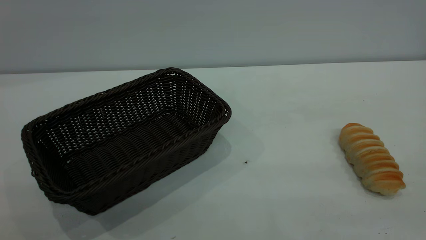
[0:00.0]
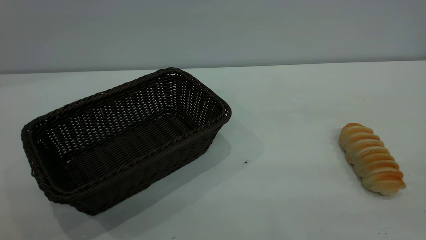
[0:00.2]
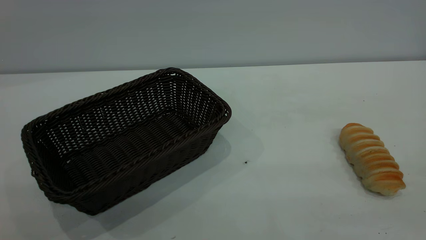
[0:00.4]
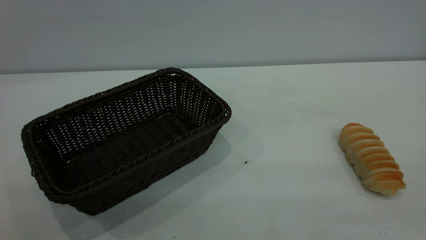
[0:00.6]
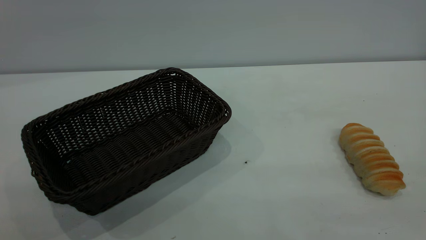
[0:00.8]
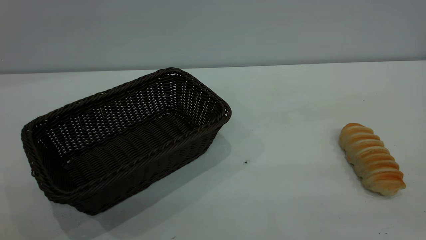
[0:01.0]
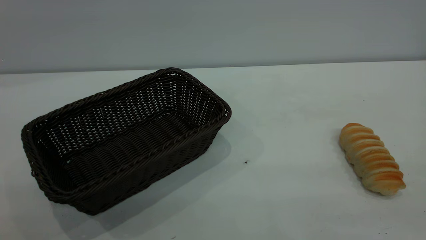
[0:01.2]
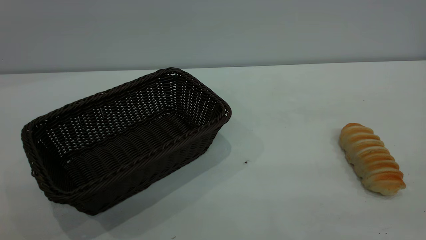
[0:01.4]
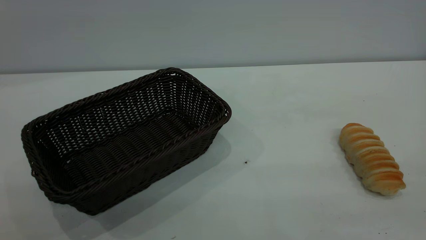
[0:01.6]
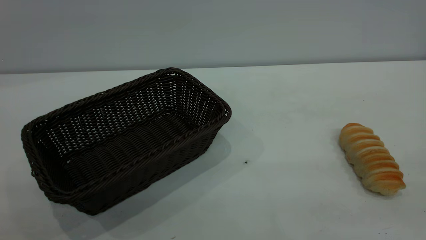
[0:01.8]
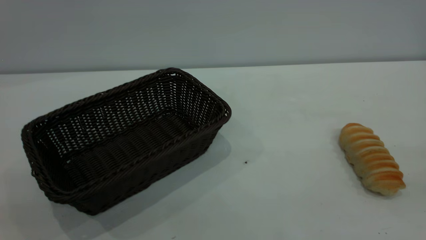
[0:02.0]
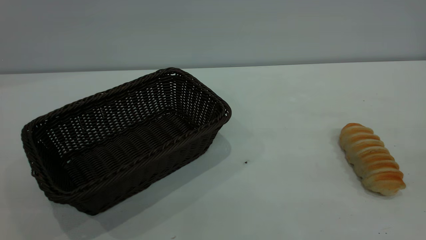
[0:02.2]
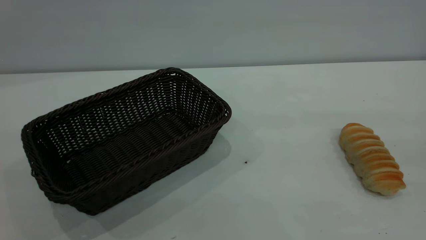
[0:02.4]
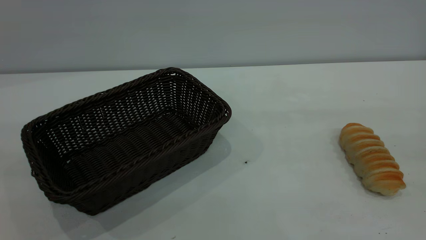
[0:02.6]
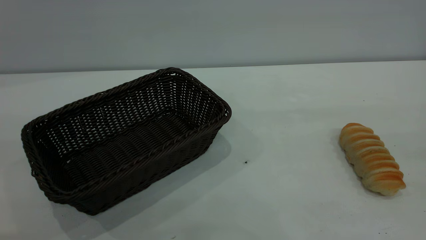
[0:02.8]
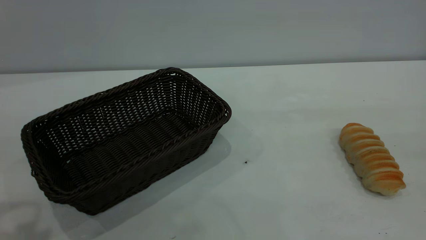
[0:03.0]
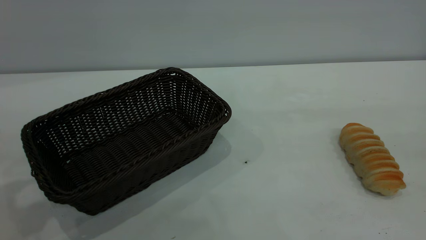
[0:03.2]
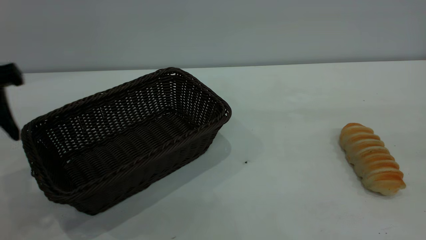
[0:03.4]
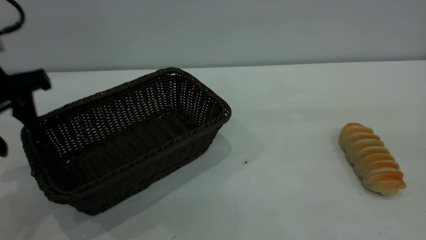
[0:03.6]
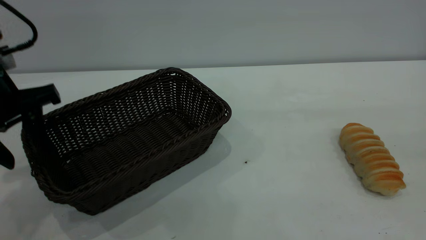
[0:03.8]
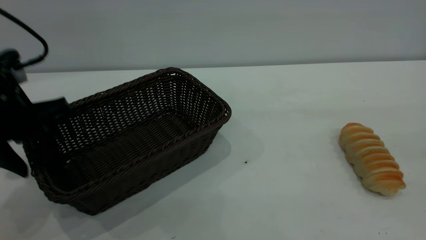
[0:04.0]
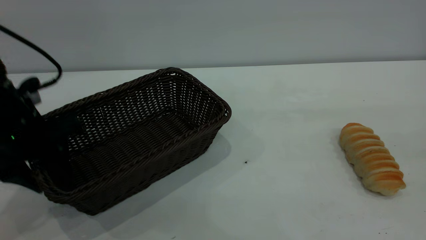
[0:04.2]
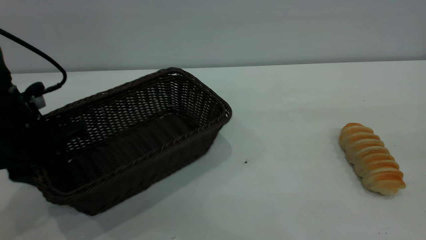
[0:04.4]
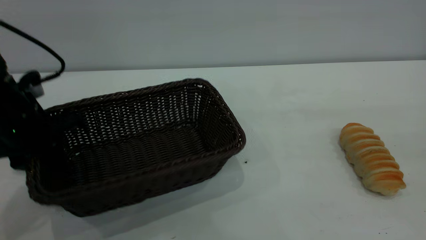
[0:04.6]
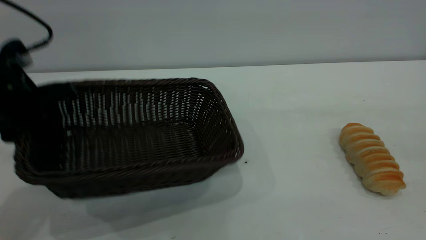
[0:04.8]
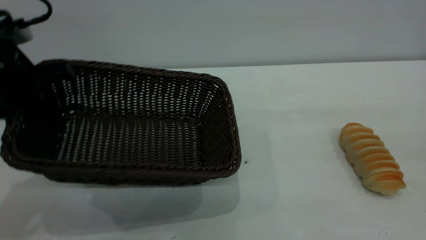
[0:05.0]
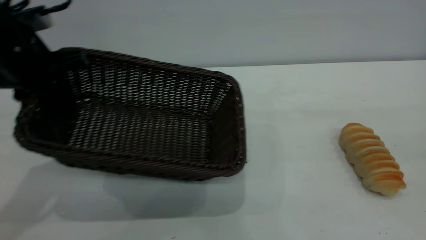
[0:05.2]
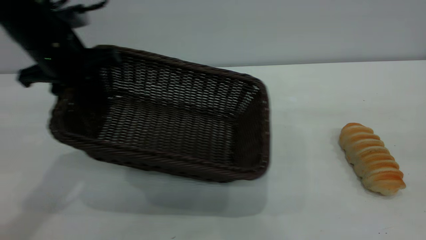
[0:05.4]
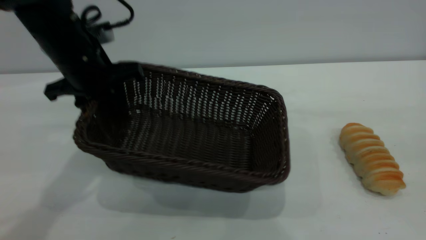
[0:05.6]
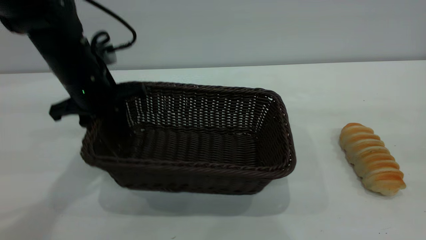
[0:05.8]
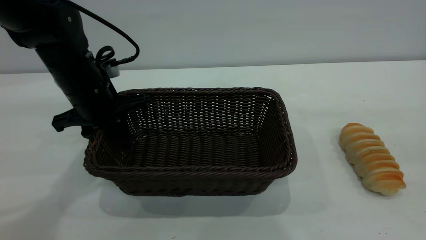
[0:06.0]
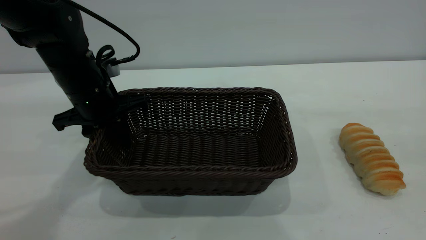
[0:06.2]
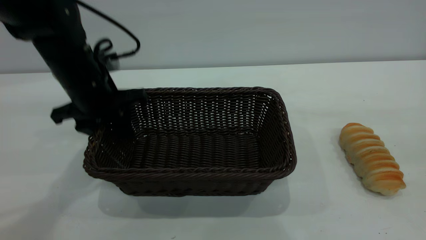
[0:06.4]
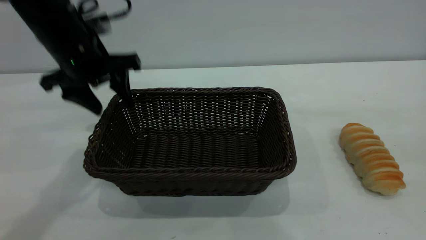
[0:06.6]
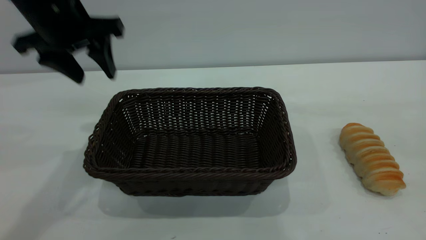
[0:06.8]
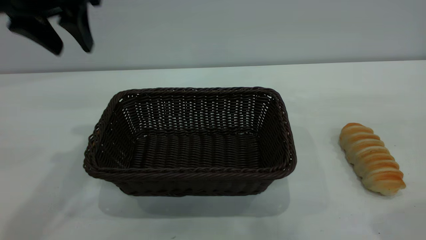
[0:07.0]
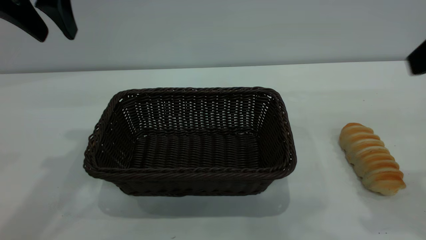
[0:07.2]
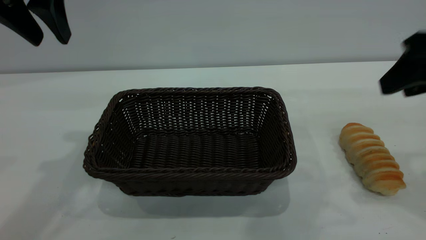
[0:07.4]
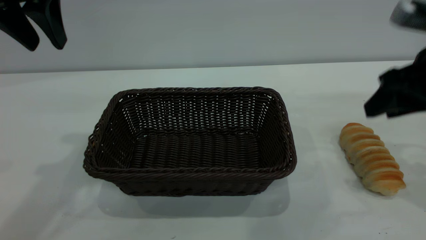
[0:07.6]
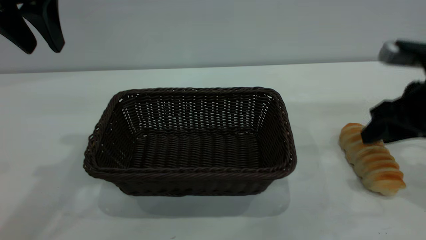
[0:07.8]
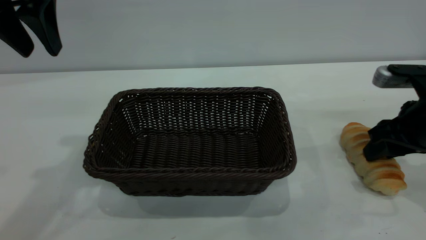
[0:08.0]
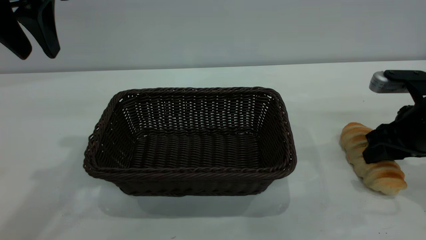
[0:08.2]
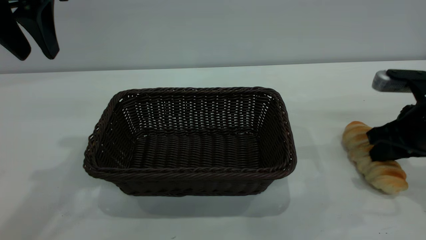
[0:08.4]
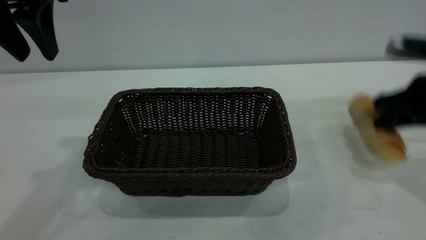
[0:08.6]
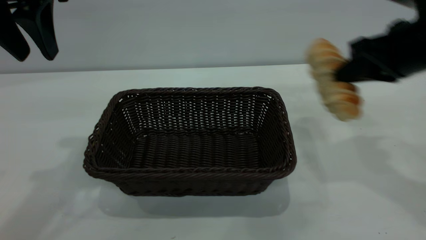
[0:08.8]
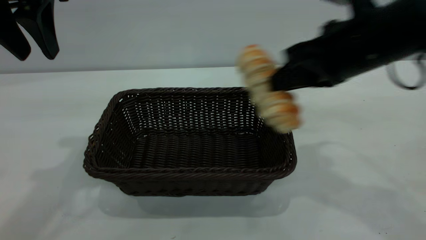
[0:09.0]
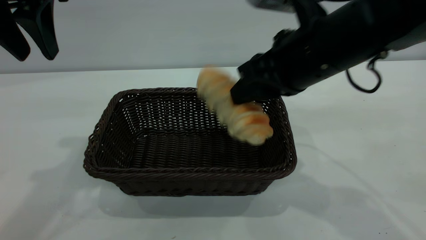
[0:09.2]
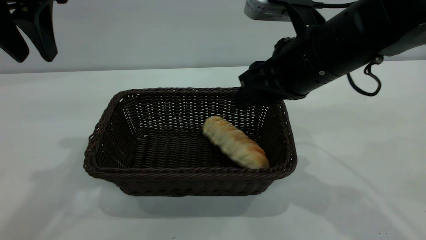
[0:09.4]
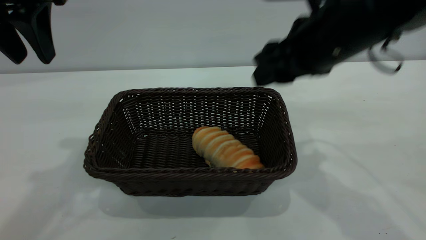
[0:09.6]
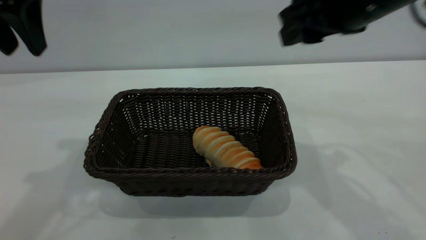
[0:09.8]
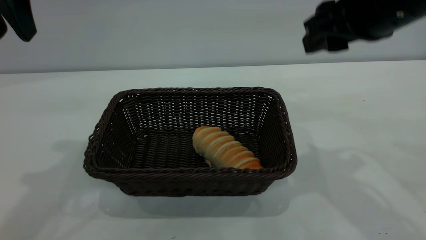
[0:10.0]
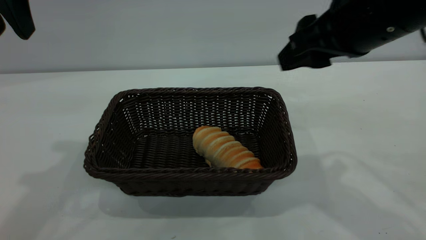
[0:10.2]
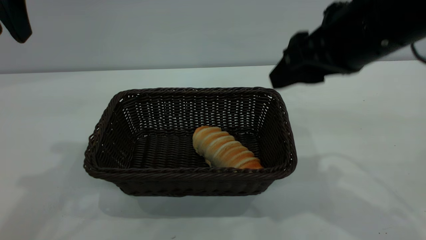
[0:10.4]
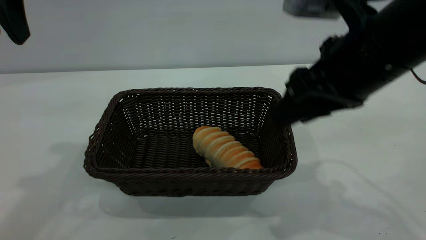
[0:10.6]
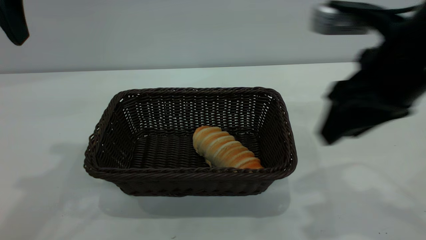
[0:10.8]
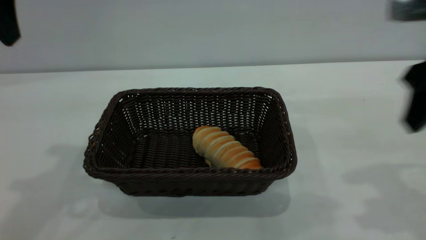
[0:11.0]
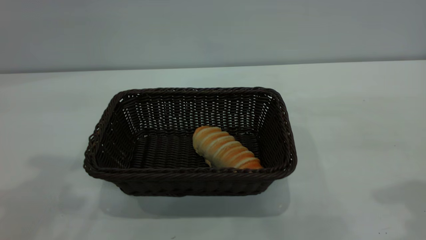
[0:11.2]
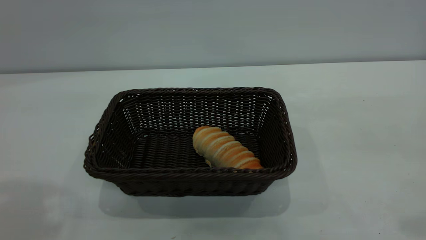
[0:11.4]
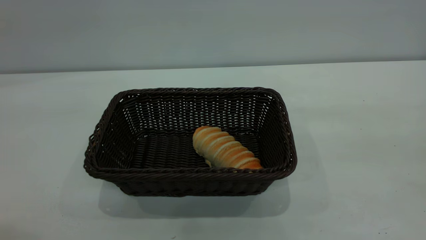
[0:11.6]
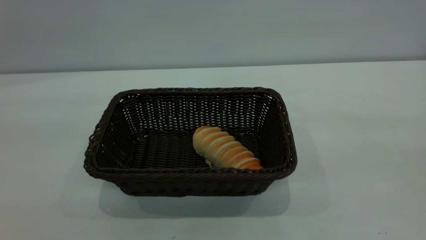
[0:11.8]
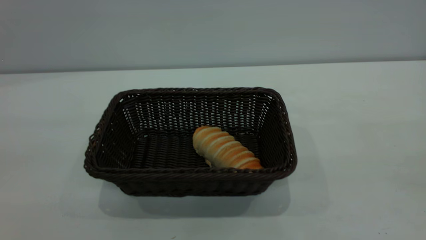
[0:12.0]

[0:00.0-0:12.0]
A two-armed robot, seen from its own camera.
Task of the whole recording: One hand grasps the black basket and places it in the middle of the table, while the other hand picks up the long bread and puts it into the black basket.
Step, 0:00.0 to 0:06.6: Move the basket to the center of view.
Step, 0:08.8 to 0:09.6: place the bread into the basket.
0:00.0 to 0:01.6: The two grippers keep their place.
0:03.0 to 0:04.4: The left gripper is displaced downward and forward by roughly 20 cm, and closes up.
0:04.4 to 0:06.0: The left gripper is displaced forward and to the right by some 10 cm, and goes upward and returns, about 10 cm each way.
0:06.0 to 0:07.6: The right gripper travels downward and forward by approximately 30 cm. Meanwhile the left gripper travels upward by about 20 cm, and opens.
0:07.6 to 0:09.0: The right gripper is displaced to the left by some 15 cm, and closes up.
0:09.0 to 0:10.4: The right gripper opens up.
0:10.4 to 0:12.0: The left gripper is displaced backward by roughly 25 cm. Meanwhile the right gripper travels backward, upward and to the right by roughly 30 cm.
